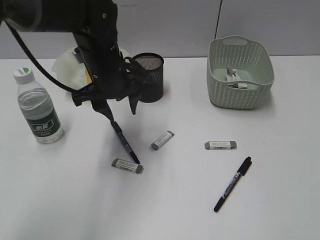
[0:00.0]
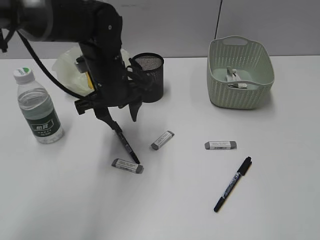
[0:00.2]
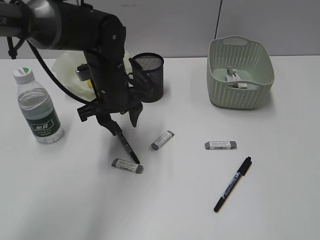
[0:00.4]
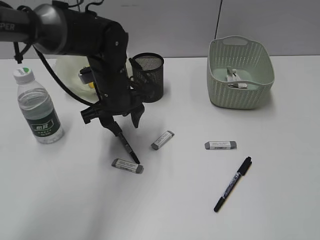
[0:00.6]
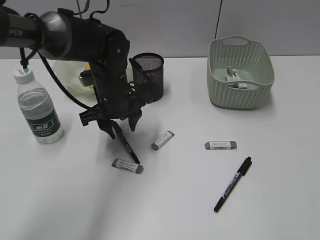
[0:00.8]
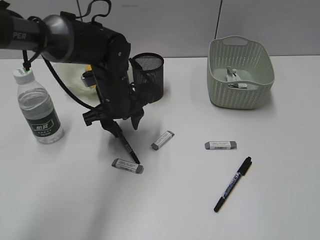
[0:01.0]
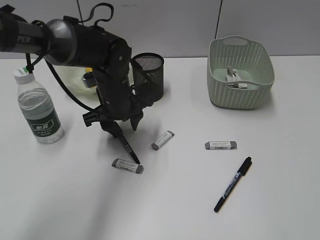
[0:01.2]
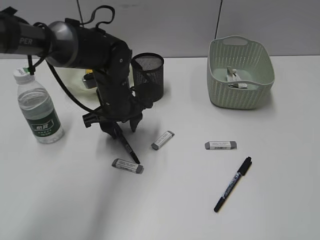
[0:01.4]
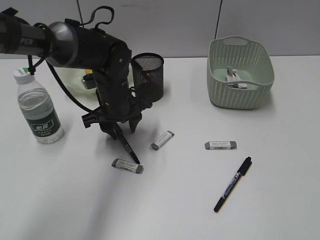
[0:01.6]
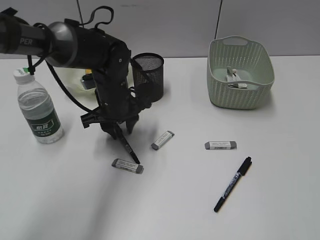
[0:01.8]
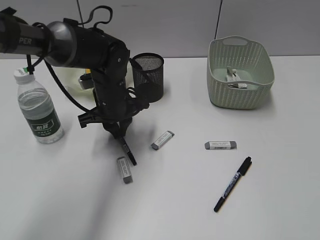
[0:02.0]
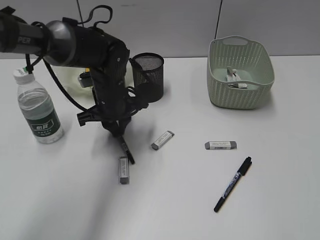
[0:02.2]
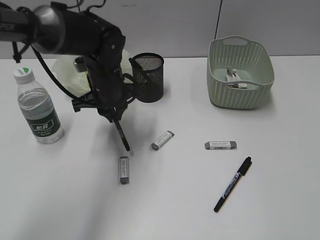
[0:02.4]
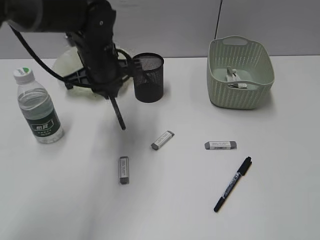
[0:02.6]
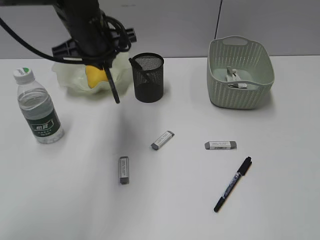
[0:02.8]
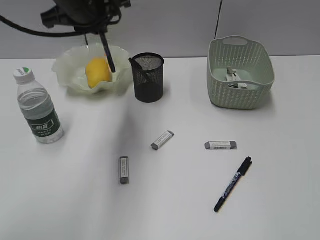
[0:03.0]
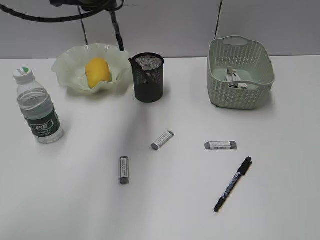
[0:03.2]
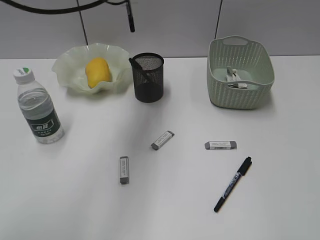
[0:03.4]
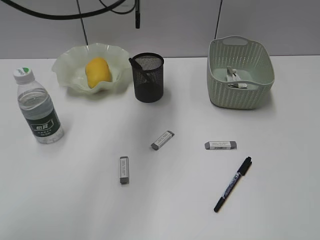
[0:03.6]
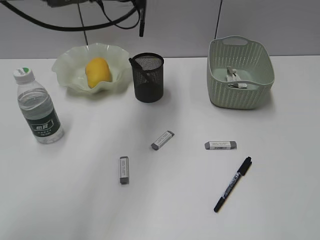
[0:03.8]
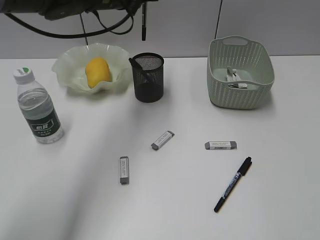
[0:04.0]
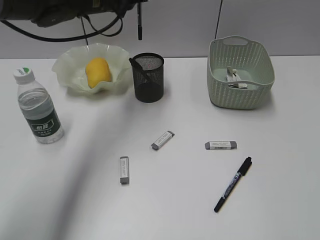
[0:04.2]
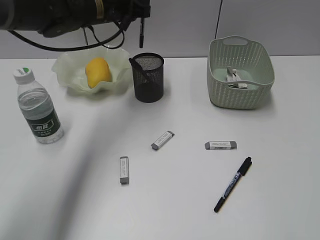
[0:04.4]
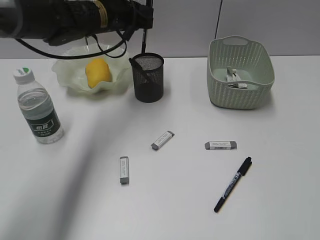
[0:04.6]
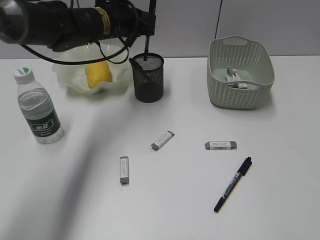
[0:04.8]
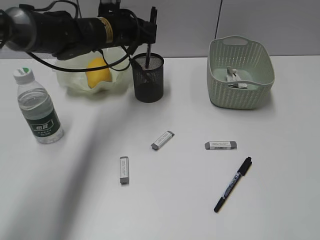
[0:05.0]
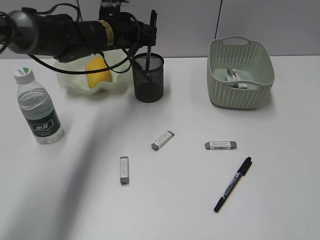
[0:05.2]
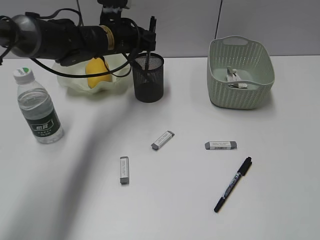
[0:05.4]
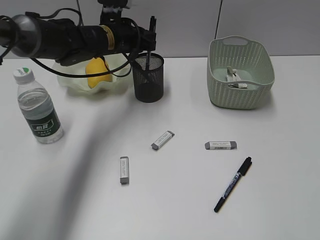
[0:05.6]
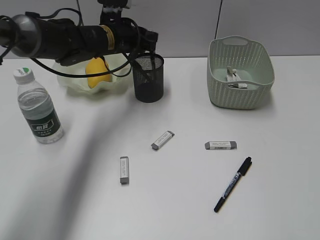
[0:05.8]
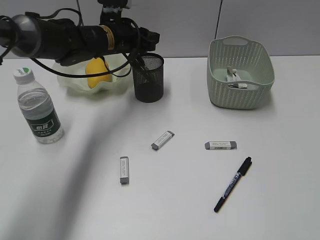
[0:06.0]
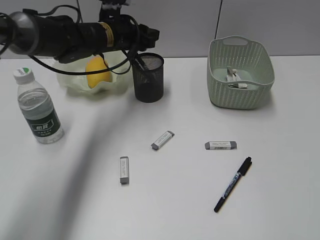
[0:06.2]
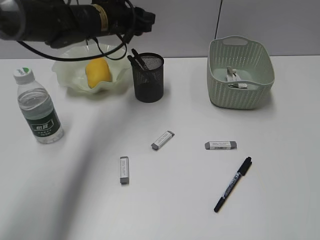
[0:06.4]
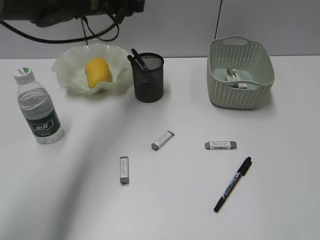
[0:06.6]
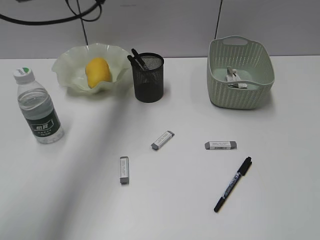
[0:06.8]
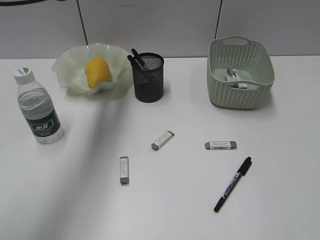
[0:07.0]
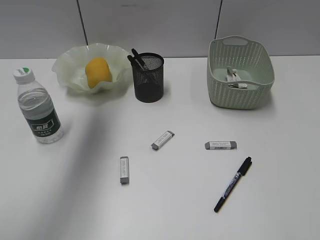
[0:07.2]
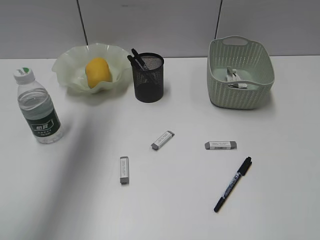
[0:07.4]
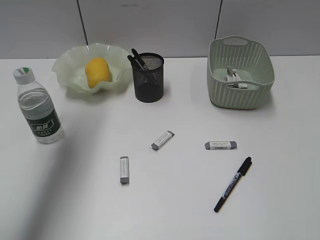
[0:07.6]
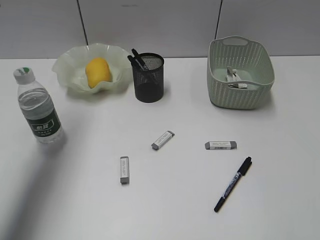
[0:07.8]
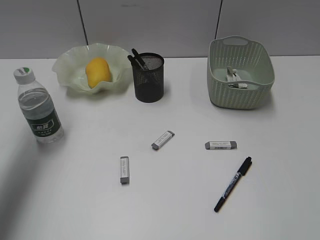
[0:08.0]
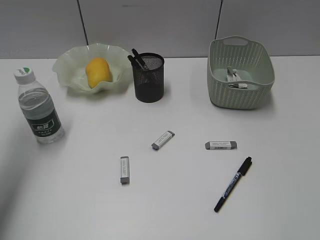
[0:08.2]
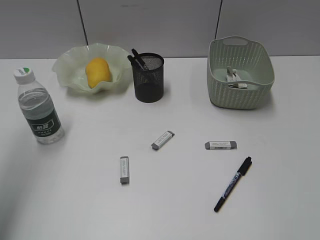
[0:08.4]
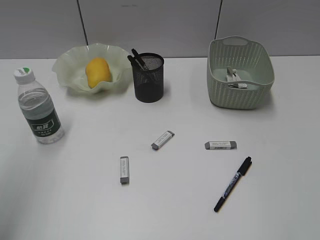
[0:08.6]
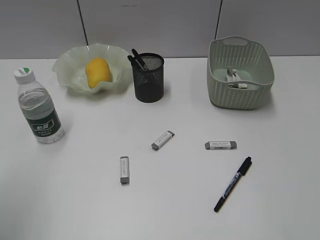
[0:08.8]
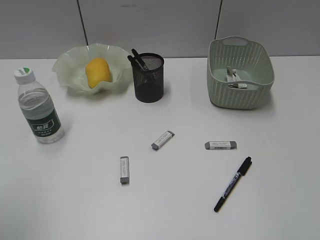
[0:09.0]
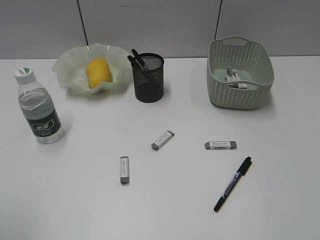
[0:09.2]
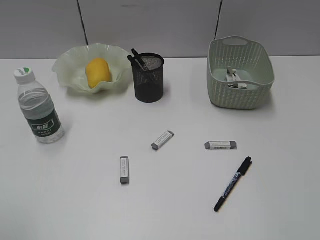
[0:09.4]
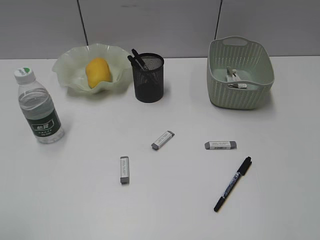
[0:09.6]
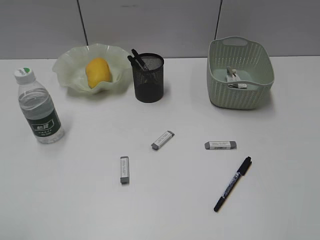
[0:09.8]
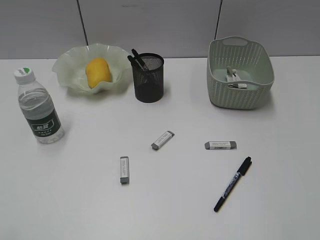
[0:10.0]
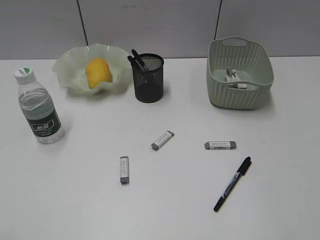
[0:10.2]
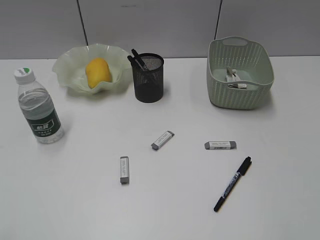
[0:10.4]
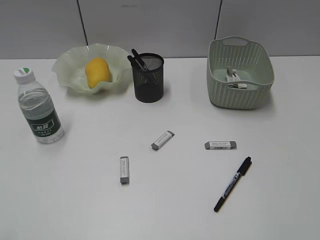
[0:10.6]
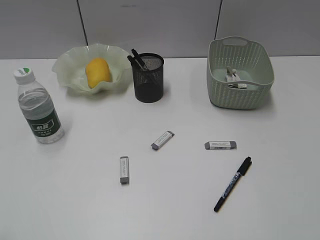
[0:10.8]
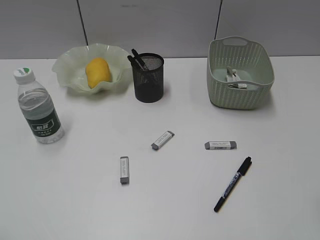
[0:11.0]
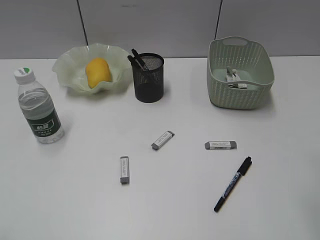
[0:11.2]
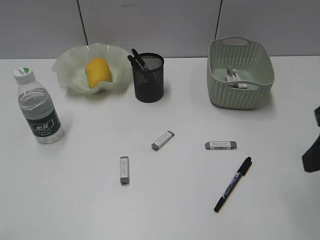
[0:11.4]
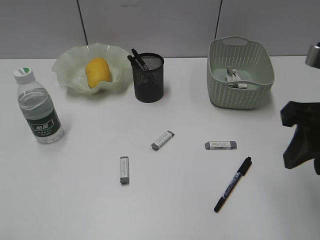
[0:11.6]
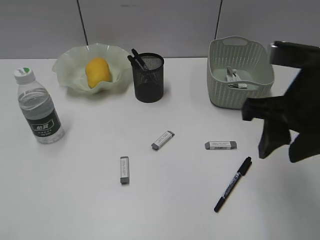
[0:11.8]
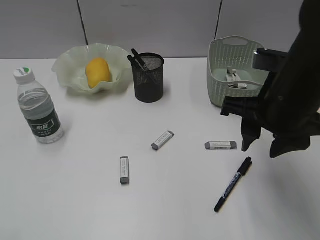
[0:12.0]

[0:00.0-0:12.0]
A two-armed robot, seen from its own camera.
Step, 0:00.0 to 0:02.0: Grasp the black pen with left gripper.
Step, 0:02.2 to 0:06.2: Place the black pen in pen holder with left gripper.
0:00.0 to 0:01.6: The left gripper heads downward, covering roughly 5 cm.
0:01.6 to 0:03.0: The left gripper shifts approximately 20 cm upward, and closes its fingers.
0:03.0 to 0:04.4: The left gripper travels forward and downward by approximately 10 cm.
0:04.4 to 0:06.0: The left gripper heads downward, covering approximately 5 cm, and opens.
0:06.0 to 0:07.6: The left gripper is displaced upward, to the left and backward by about 30 cm.
0:07.6 to 0:09.0: The left gripper shifts roughly 25 cm backward.
0:09.0 to 0:10.4: The left gripper moves backward and downward, some 10 cm.
0:10.4 to 0:12.0: The right gripper heads forward and to the left, covering approximately 25 cm.

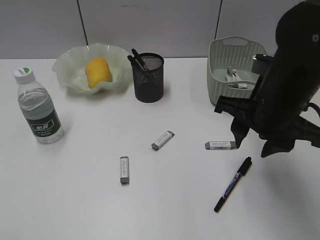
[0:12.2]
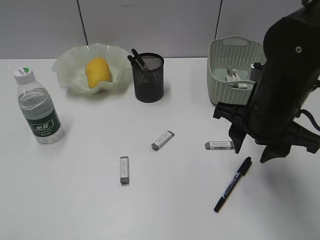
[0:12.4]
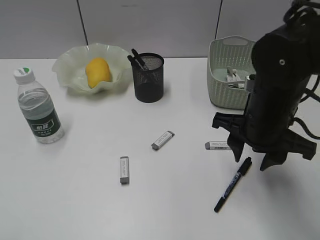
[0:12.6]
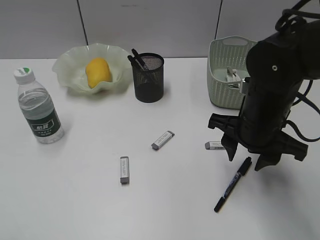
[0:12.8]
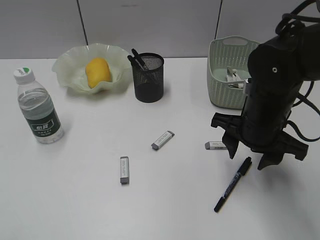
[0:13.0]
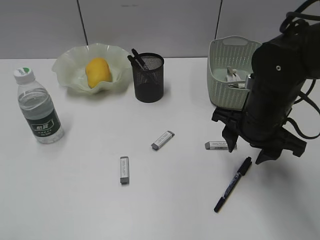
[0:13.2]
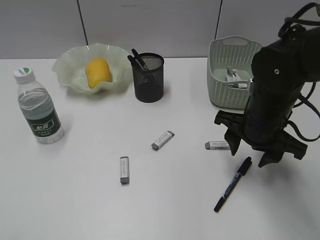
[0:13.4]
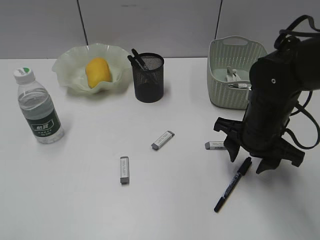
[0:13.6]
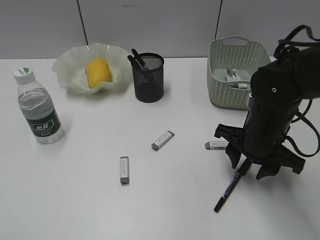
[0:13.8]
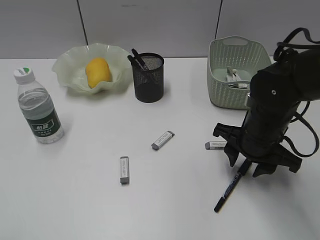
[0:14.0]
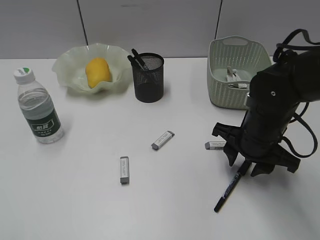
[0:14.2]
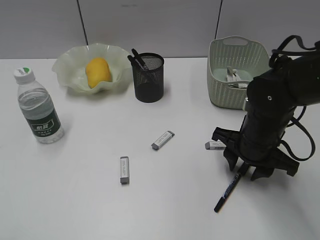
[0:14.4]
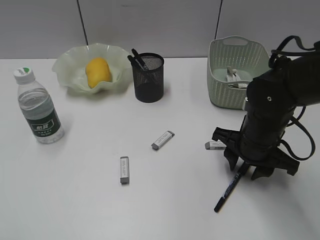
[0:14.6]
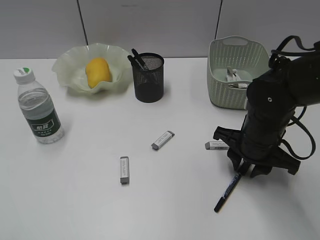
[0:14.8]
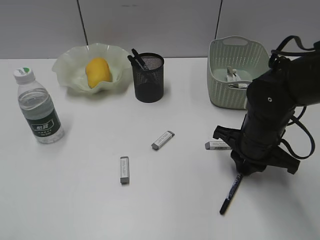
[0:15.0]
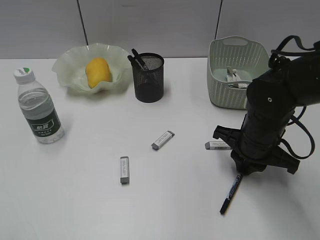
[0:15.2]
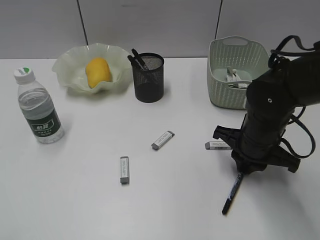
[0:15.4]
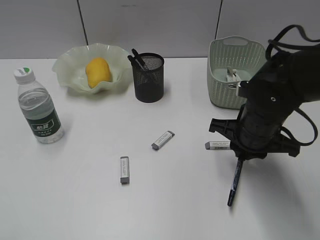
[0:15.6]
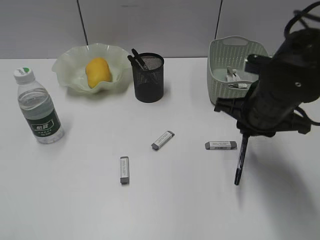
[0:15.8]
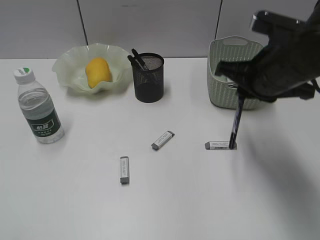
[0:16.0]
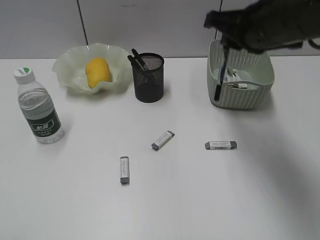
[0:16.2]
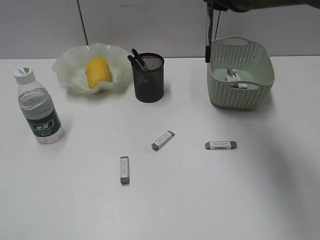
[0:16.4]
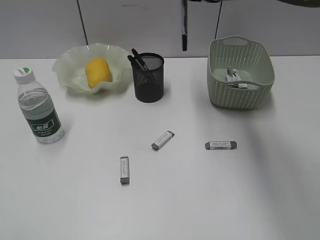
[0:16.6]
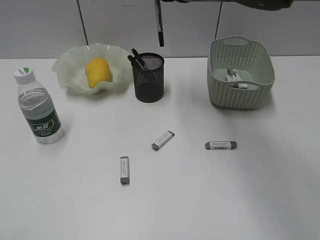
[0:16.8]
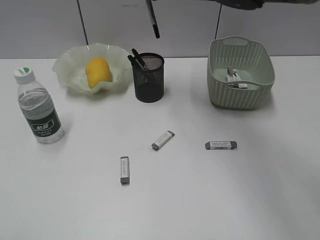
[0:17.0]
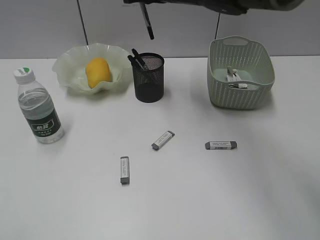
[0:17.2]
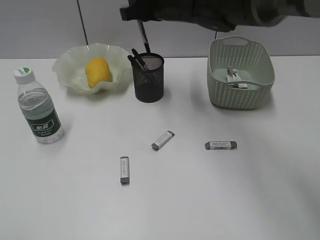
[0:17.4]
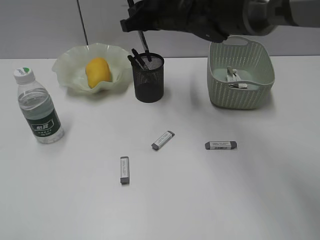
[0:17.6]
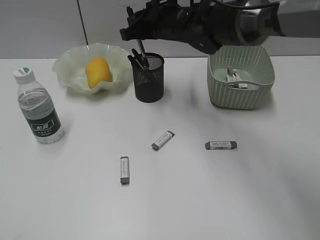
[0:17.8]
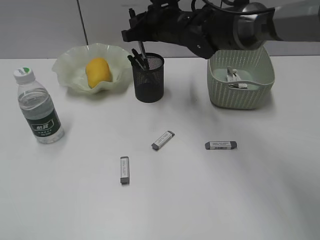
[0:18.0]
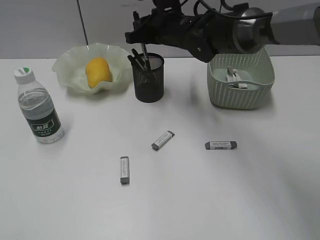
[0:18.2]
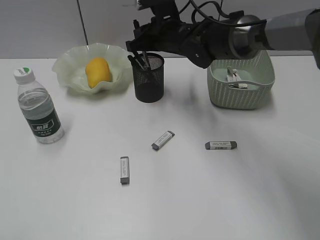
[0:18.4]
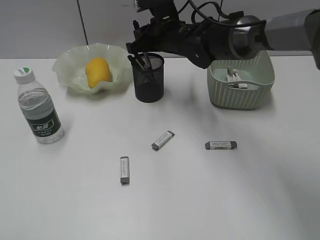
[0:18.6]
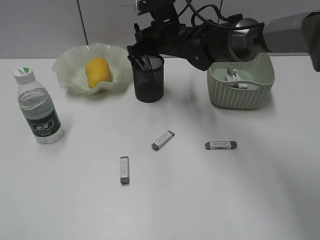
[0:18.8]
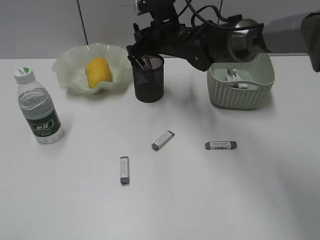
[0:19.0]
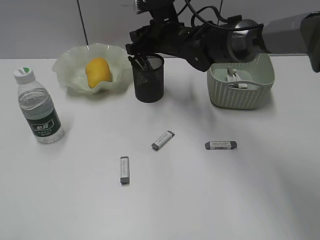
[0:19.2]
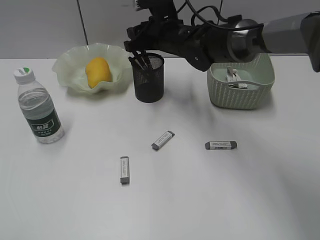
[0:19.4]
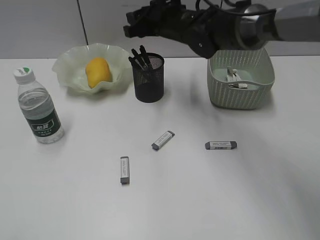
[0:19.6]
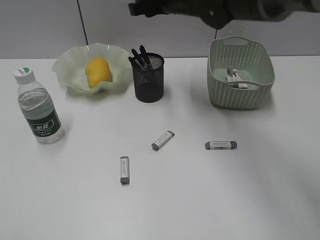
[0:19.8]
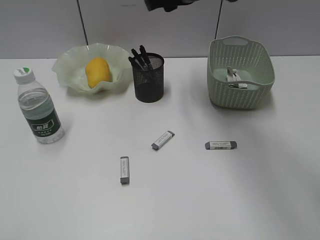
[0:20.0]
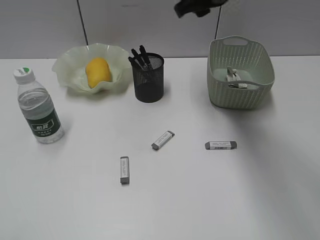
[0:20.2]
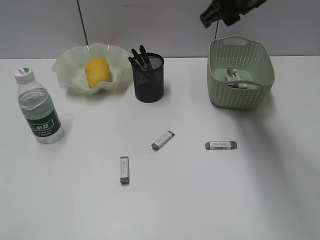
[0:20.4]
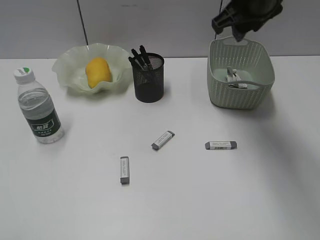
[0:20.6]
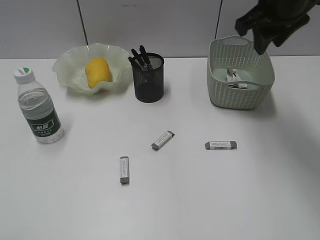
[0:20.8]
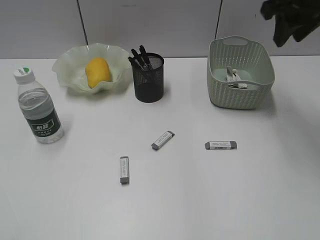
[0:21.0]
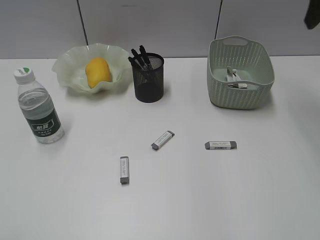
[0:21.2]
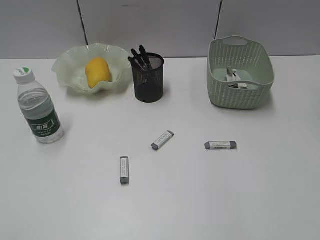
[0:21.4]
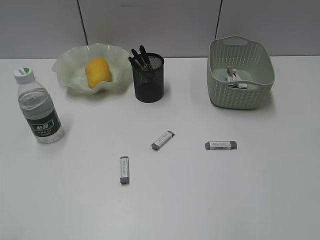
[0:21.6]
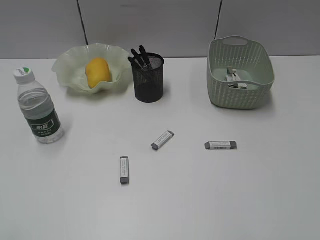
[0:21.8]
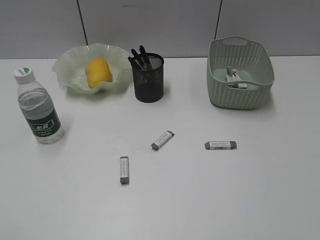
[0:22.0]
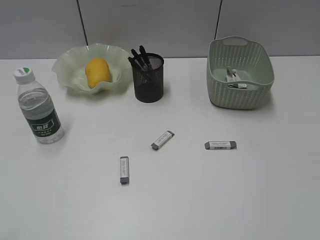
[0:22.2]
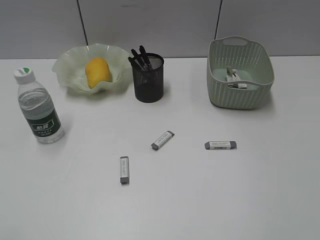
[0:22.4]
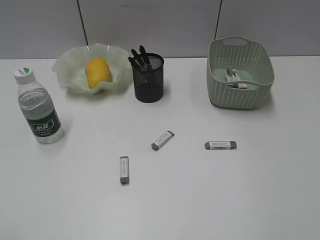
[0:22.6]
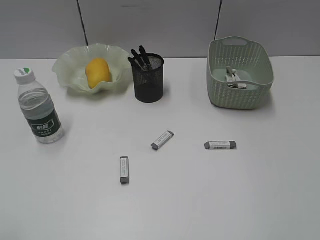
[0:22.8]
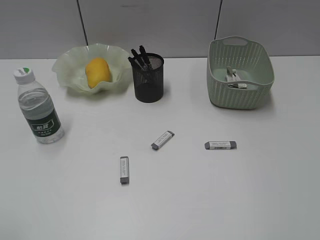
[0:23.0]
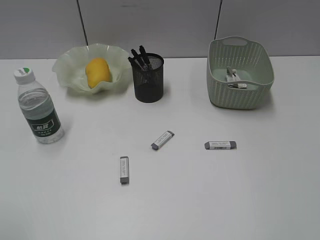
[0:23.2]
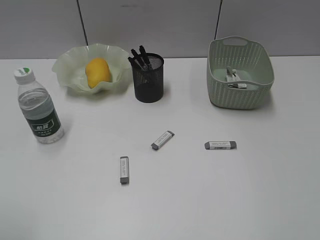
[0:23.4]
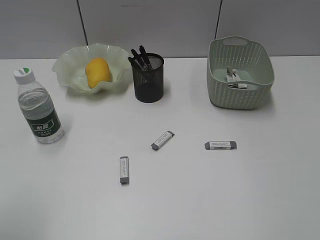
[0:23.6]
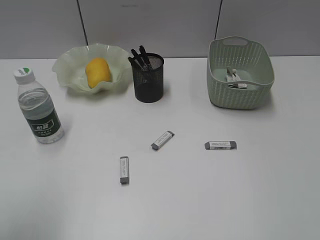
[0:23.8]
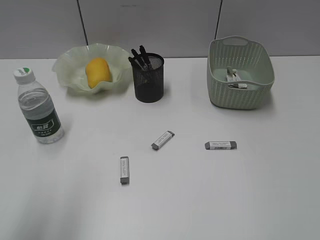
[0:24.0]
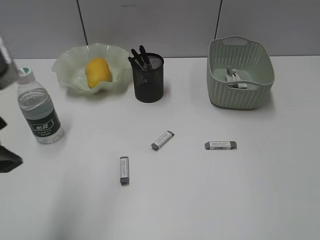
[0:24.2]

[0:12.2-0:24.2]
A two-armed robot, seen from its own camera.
Step, 0:12.2 to 0:15.2: Grasp the black pen with right gripper.
Step, 0:15.4 to 0:19.6: Place the black pen in pen holder with right gripper.
0:12.2 to 0:13.8: The right gripper travels downward by some 10 cm.
0:13.8 to 0:15.2: The right gripper closes.
0:15.2 to 0:16.6: The right gripper travels upward by about 20 cm.
0:16.6 to 0:18.2: The right gripper is displaced downward, forward and to the left by approximately 15 cm.
0:18.2 to 0:19.8: The right gripper moves upward, roughly 5 cm, and opens its fingers.
0:19.8 to 0:21.2: The right gripper heads to the right and upward, covering some 25 cm.
0:22.6 to 0:24.2: The left gripper travels forward and to the right by some 20 cm.
